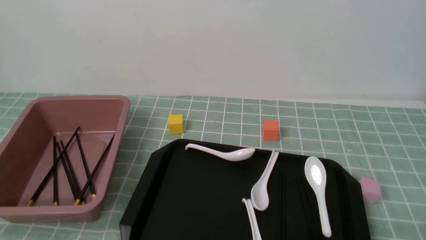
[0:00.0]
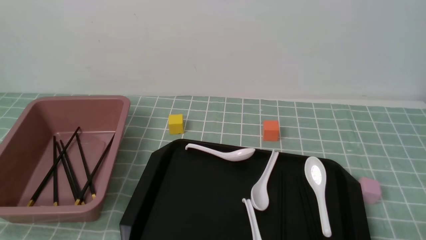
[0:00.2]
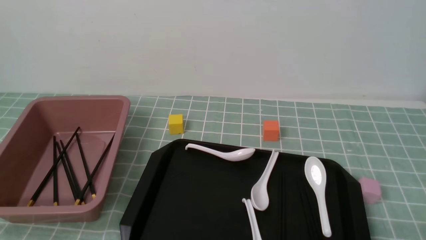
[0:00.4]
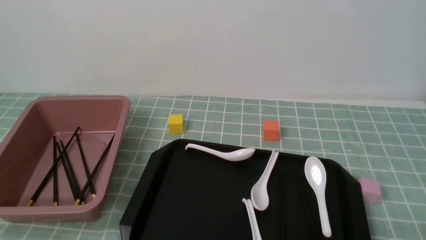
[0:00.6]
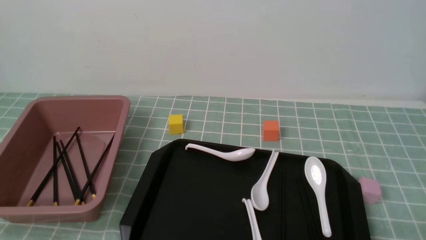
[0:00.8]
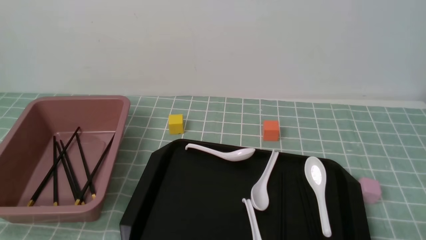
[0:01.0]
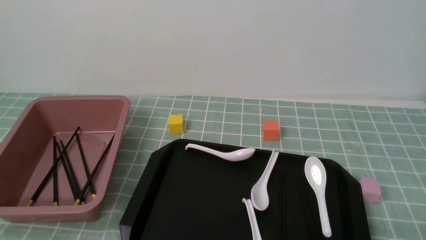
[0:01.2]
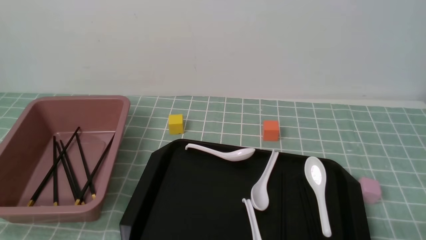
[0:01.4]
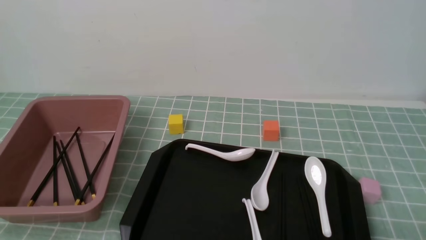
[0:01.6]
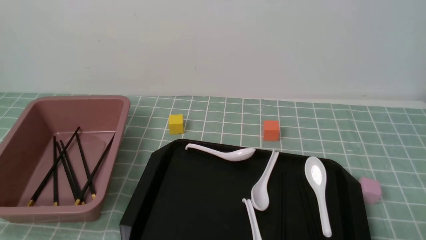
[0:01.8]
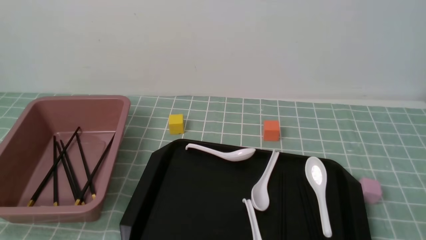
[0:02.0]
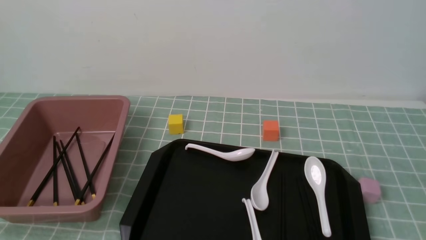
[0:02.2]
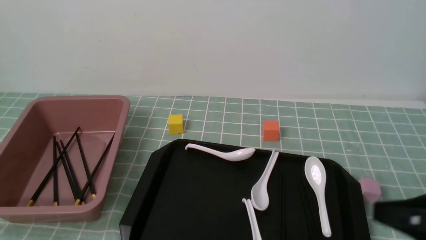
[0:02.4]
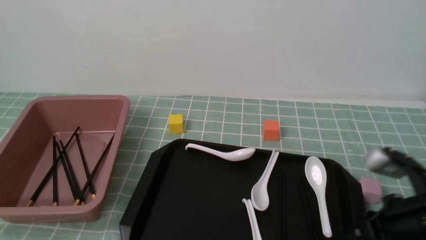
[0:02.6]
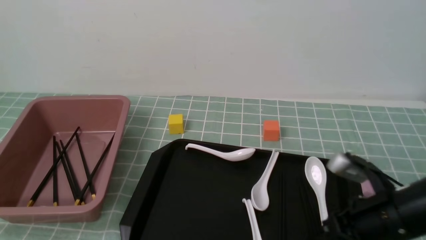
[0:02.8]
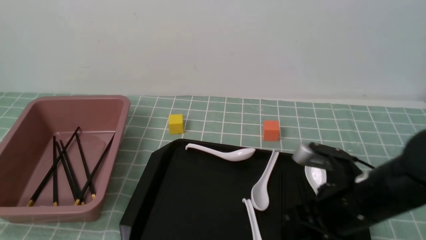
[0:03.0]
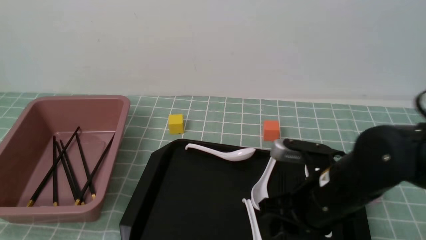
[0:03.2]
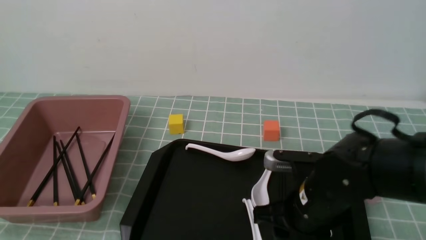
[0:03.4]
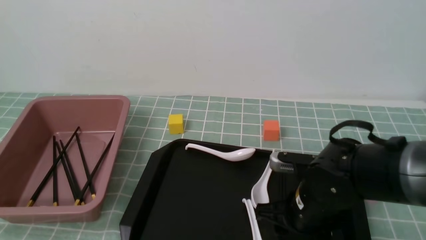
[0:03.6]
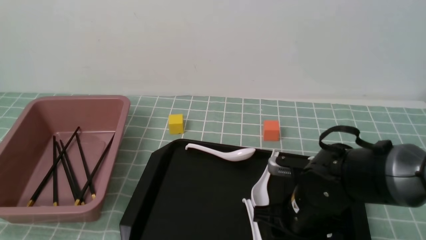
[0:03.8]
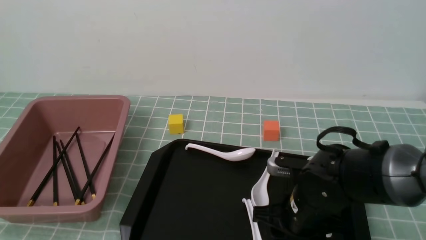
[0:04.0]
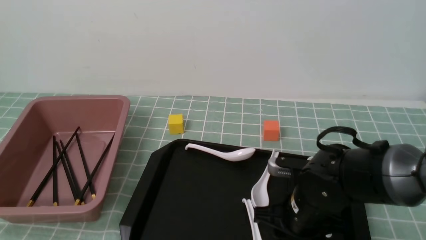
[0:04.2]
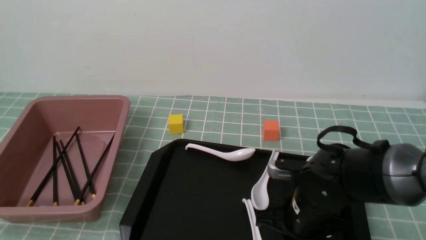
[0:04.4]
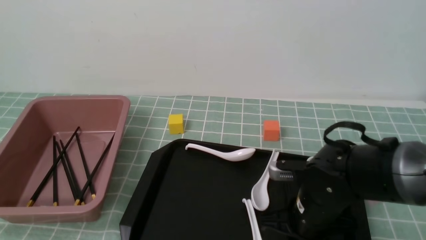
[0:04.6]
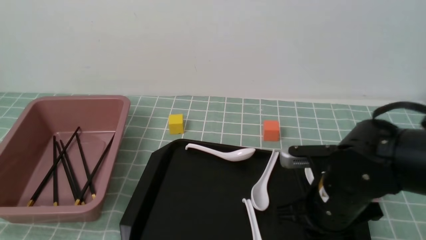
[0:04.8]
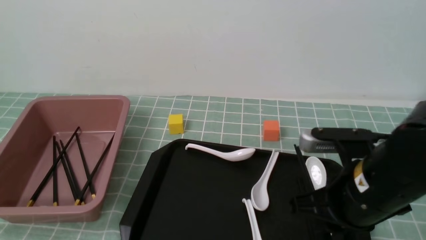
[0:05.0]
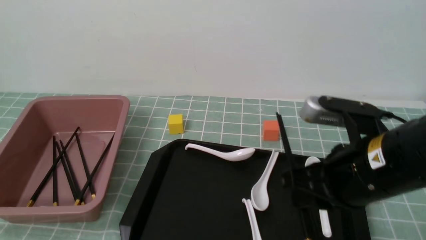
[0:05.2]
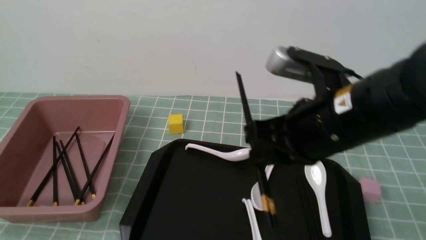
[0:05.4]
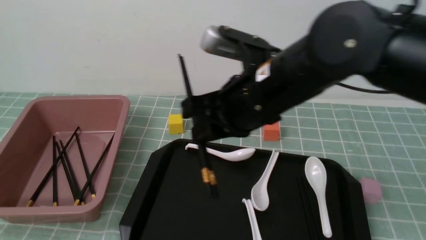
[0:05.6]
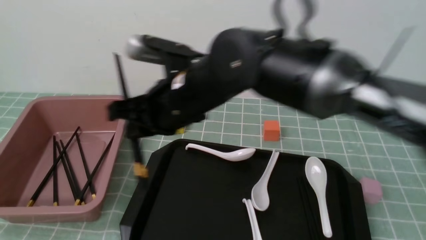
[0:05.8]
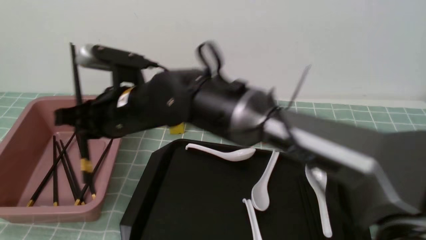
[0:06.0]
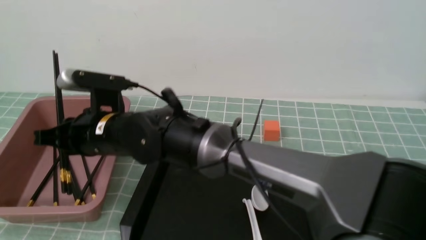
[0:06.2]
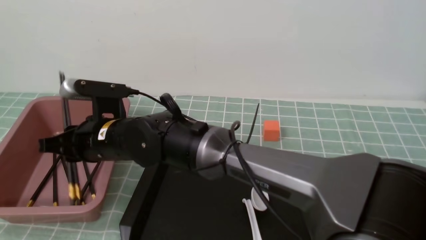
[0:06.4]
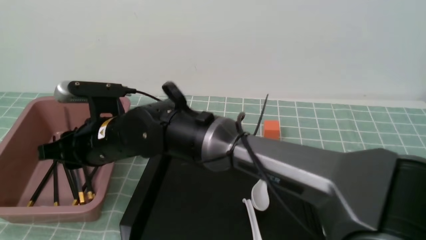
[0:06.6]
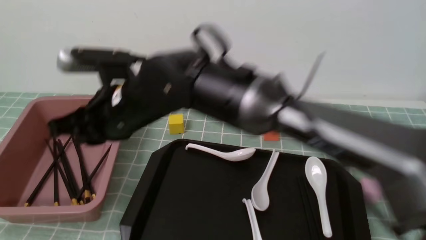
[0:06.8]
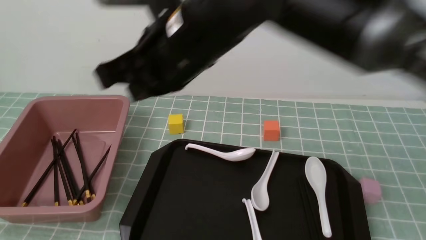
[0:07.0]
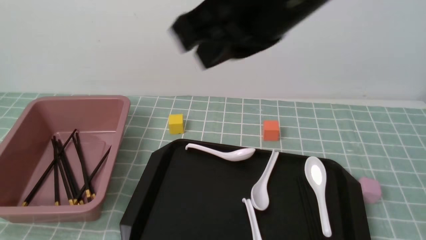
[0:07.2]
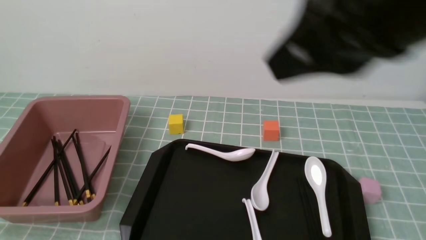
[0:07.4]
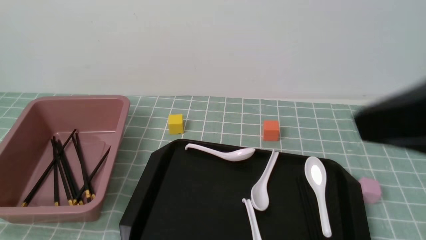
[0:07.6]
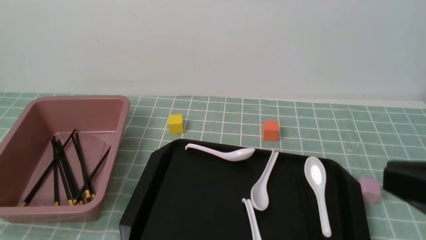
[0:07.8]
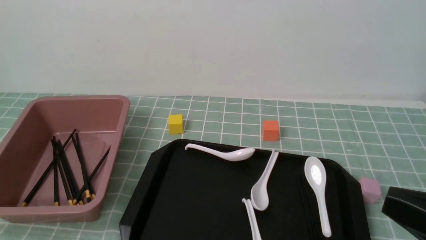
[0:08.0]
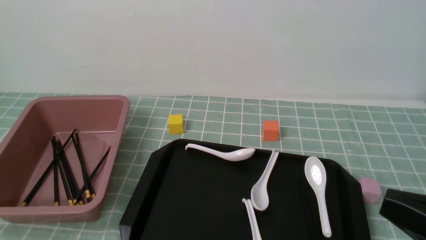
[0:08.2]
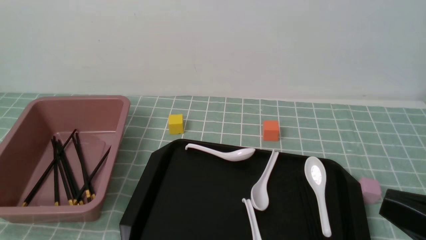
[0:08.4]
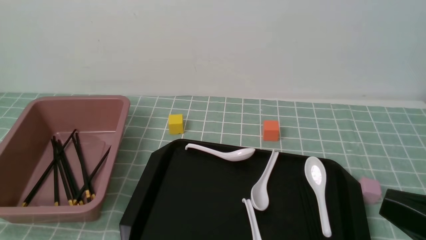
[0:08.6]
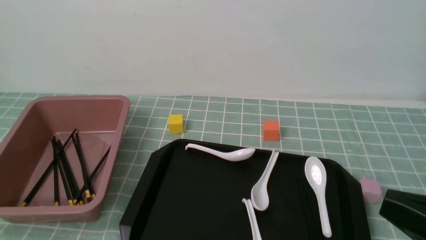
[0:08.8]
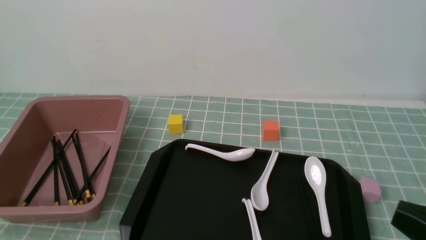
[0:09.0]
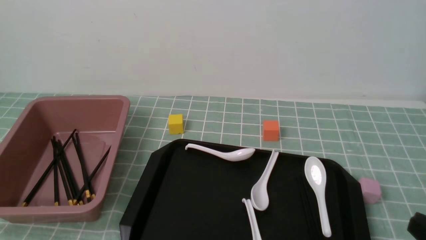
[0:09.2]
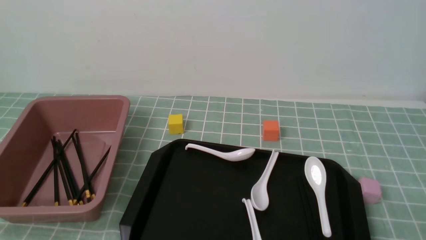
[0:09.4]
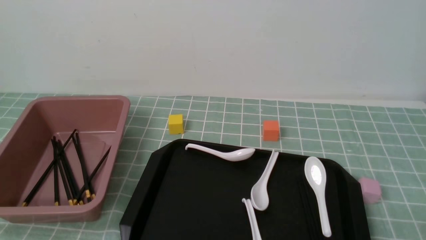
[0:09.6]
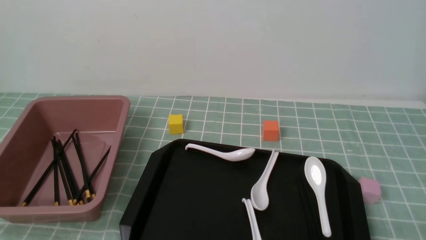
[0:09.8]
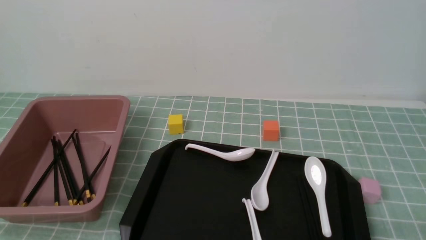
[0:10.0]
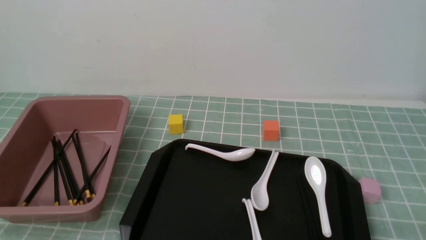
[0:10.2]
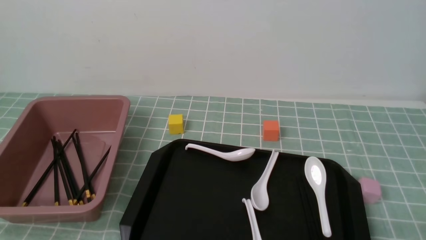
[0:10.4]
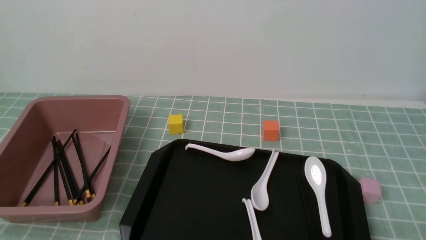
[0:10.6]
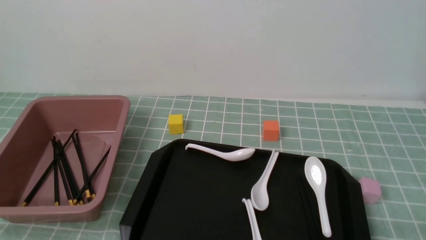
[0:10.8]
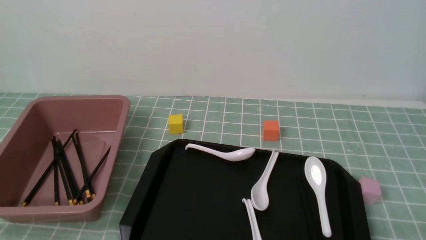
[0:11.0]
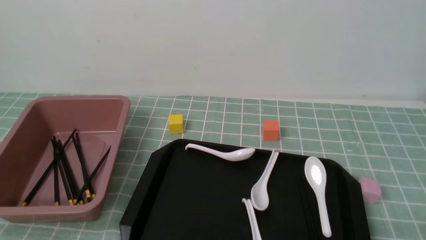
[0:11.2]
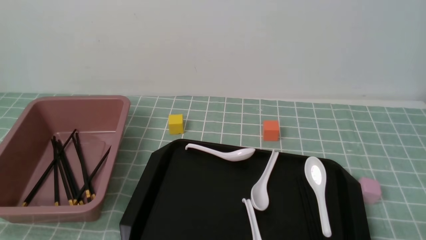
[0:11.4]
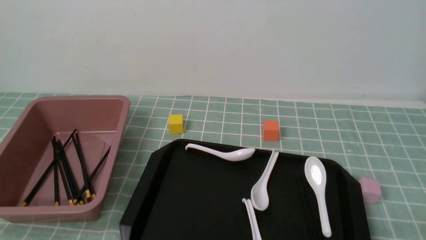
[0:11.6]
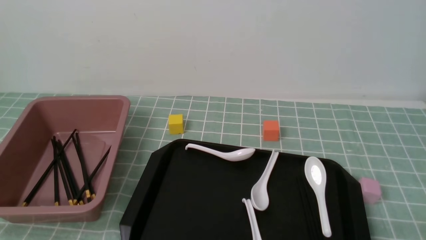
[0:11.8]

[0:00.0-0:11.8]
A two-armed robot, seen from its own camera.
Step, 0.0 to 4.8 s: use the right arm to grab a pair of chopsticks.
Step, 5.2 to 6.8 s: use the right arm to put the chopsticks into the lunch box.
1.4 to 3.0 s: The right gripper goes roughly 20 cm forward and to the left, and closes, then reopens.
3.0 to 4.4 s: The right gripper heads downward, covering approximately 5 cm, and opens, then closes again.
4.4 to 6.0 s: The right gripper is displaced to the left and upward by approximately 25 cm.
6.0 to 7.4 s: The right gripper travels to the right, upward and backward by approximately 35 cm.
7.4 to 8.8 s: The right gripper goes roughly 20 cm downward, to the right and backward.
8.8 to 10.4 s: The right gripper goes roughly 15 cm downward and to the right.
10.4 to 11.8 s: Both grippers stay put.

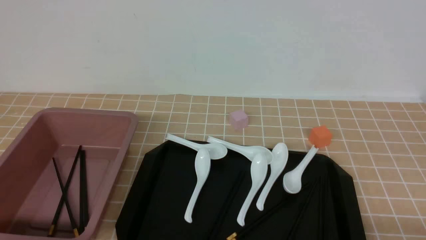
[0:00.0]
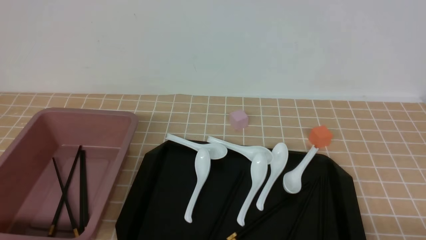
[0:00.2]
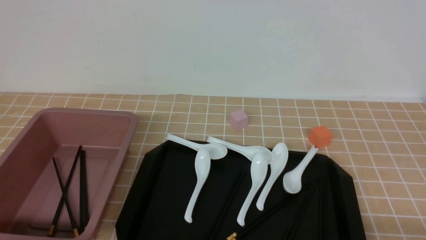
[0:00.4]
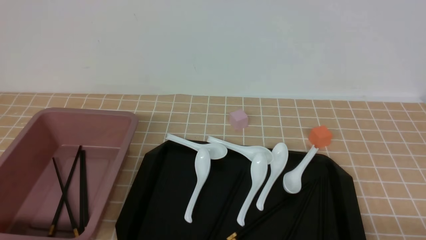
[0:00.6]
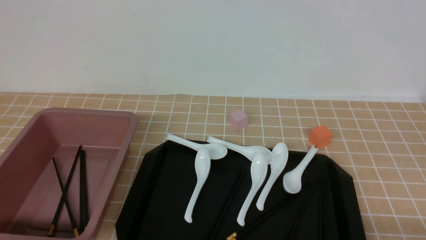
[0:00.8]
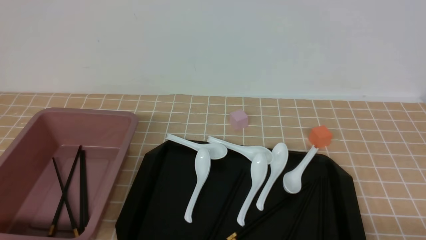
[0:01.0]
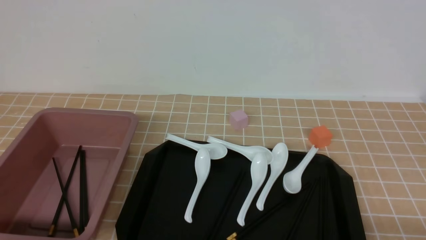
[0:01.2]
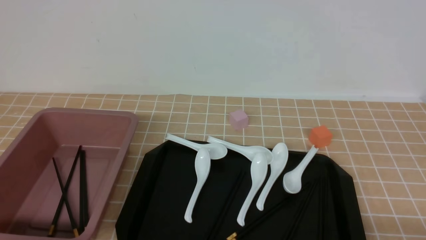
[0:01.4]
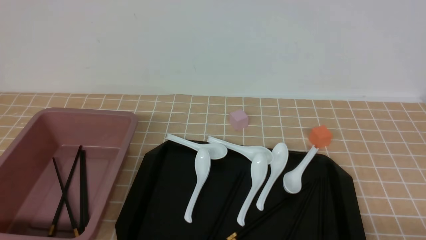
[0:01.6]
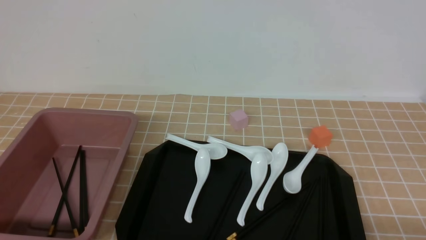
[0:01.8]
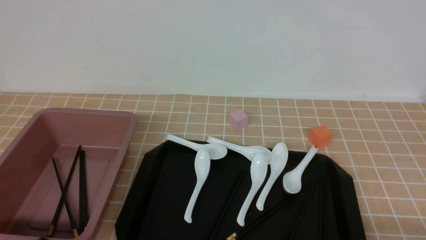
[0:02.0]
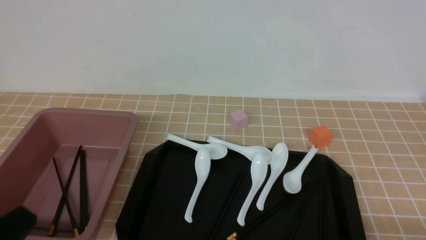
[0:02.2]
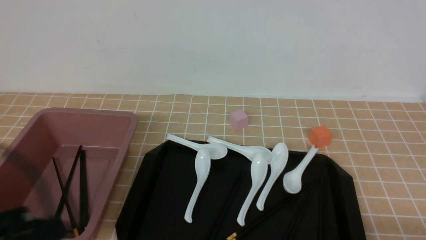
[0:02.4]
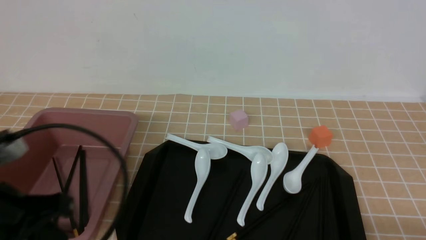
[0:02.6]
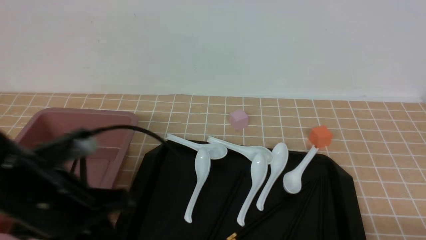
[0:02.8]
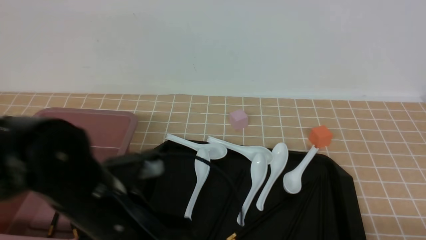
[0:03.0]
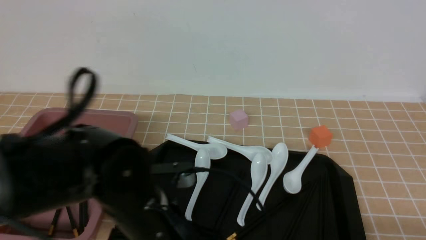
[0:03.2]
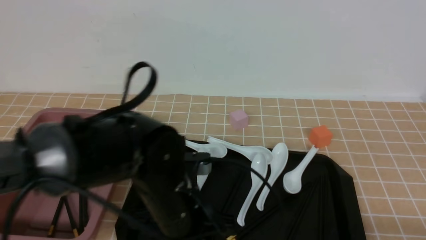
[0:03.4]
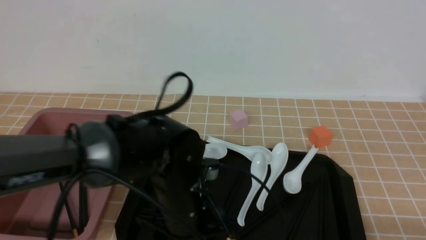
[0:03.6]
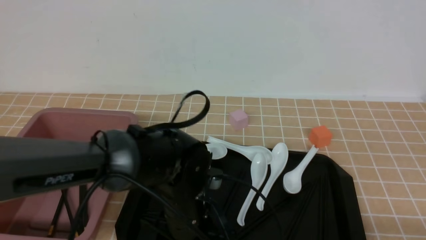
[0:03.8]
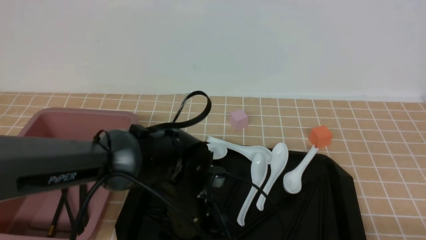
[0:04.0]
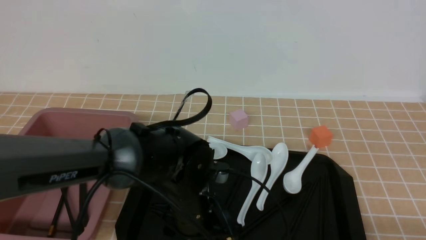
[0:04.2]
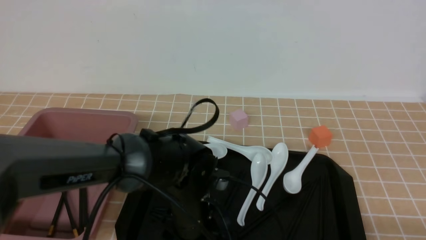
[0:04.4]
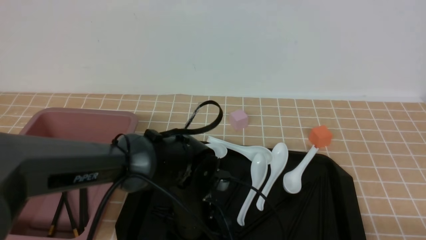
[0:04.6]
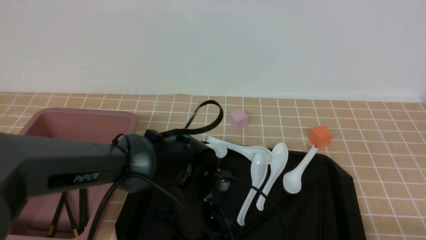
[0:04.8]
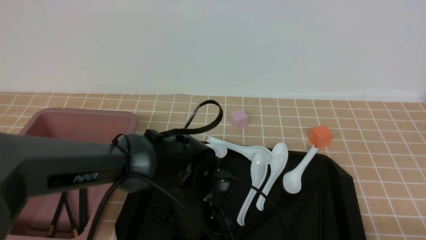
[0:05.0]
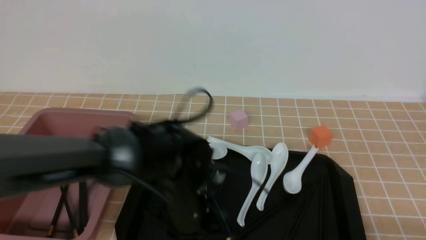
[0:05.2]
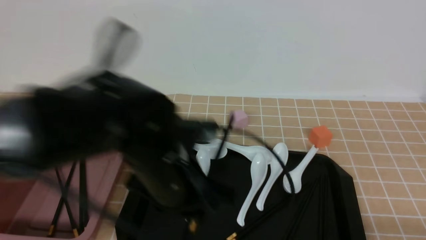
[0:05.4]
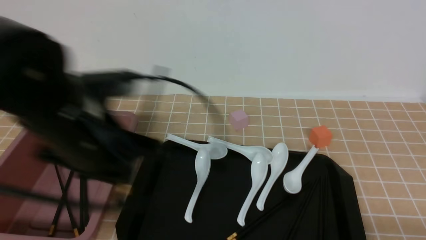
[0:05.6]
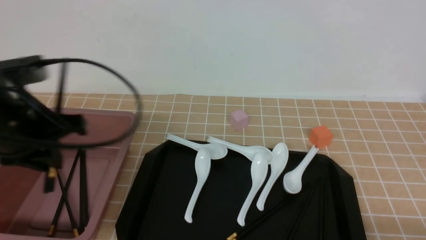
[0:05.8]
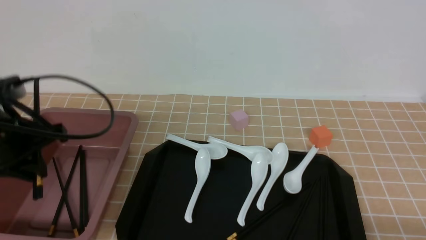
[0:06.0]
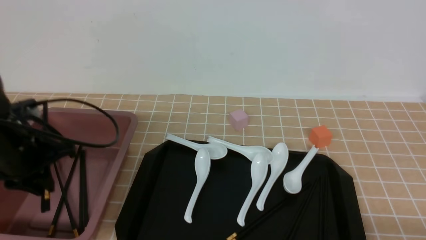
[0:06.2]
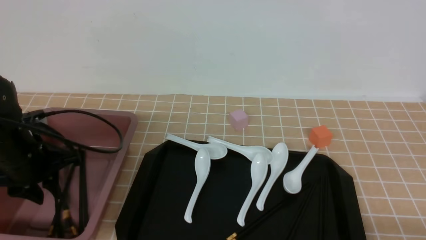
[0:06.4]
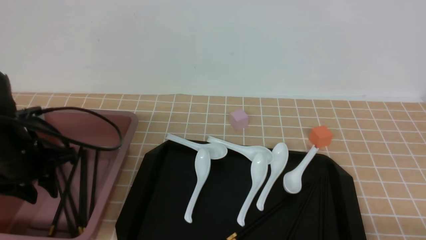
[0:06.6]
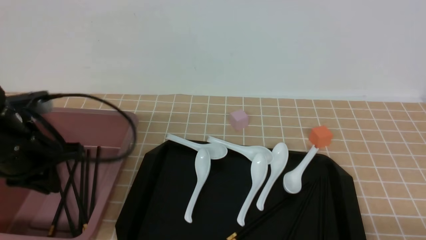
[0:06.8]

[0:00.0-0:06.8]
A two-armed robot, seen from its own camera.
Step, 0.0 to 5.2 s: use the left arm to grab a pair of chopsticks.
Step, 5.4 to 6.8 s: use the left arm to put the chopsticks into the lunch box.
1.4 to 2.8 s: The left gripper shifts roughly 15 cm upward, forward and to the right.
2.8 to 4.0 s: The left gripper travels to the right, downward and forward by some 20 cm, and opens.
4.0 to 5.4 s: The left gripper moves upward, about 5 cm, and closes.
5.4 to 6.8 s: The left gripper shifts about 20 cm to the left.
